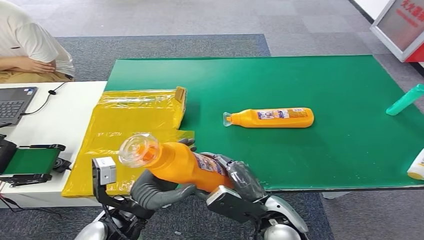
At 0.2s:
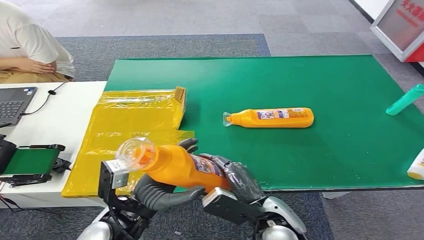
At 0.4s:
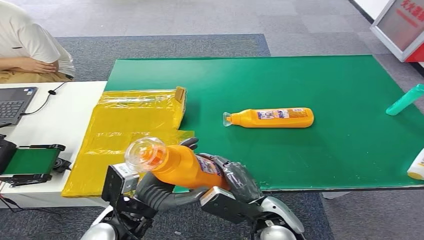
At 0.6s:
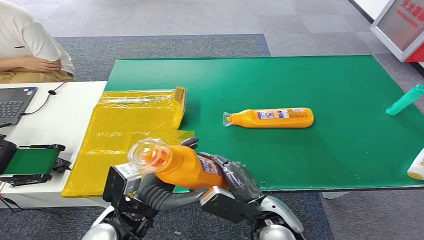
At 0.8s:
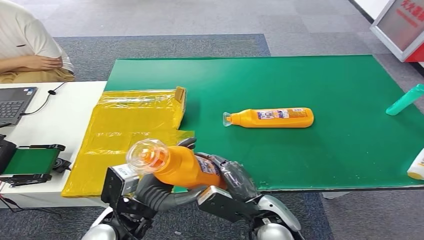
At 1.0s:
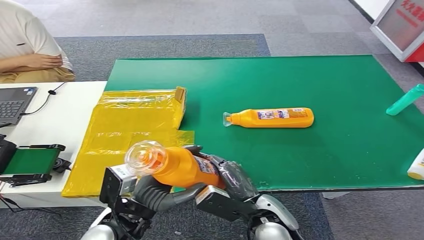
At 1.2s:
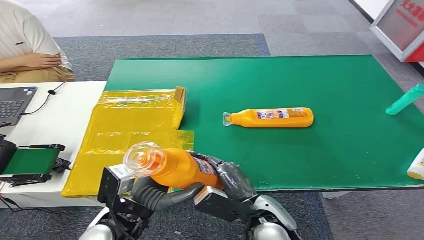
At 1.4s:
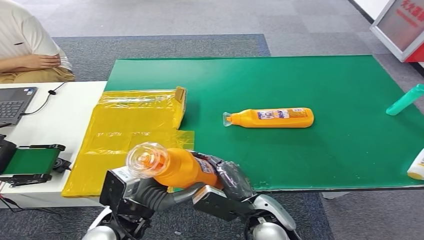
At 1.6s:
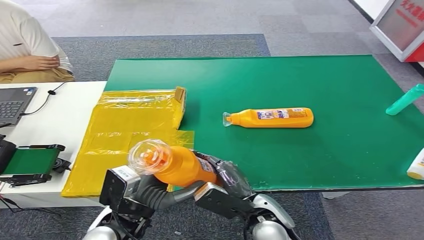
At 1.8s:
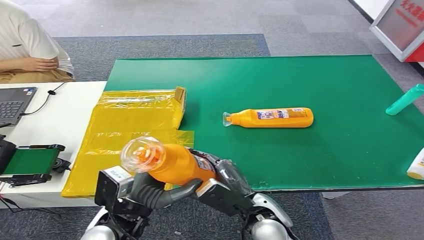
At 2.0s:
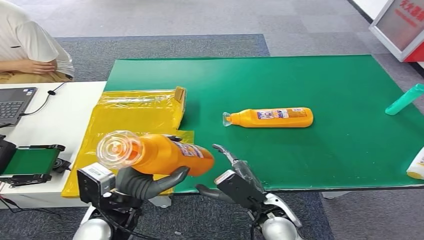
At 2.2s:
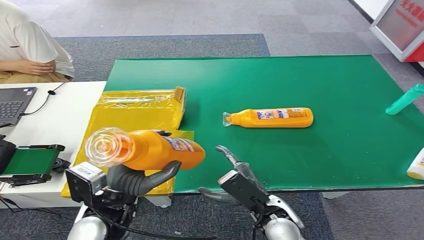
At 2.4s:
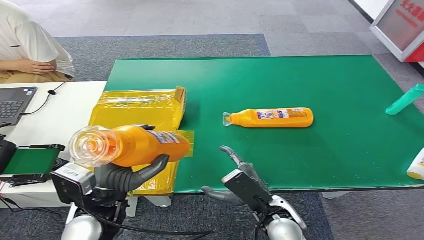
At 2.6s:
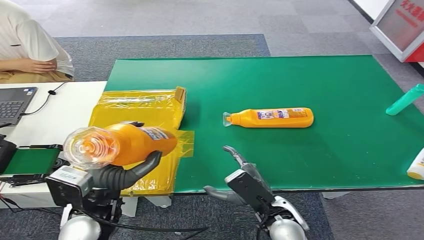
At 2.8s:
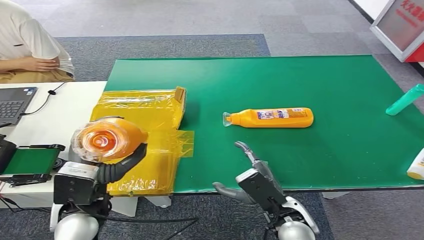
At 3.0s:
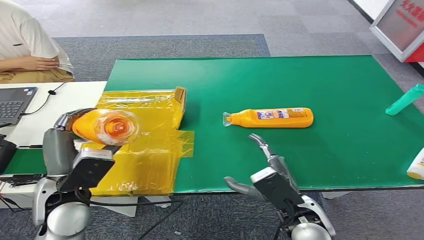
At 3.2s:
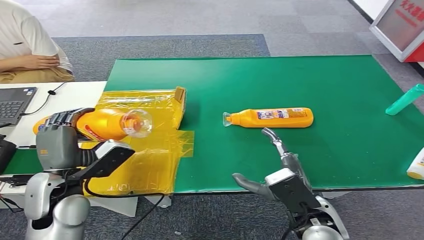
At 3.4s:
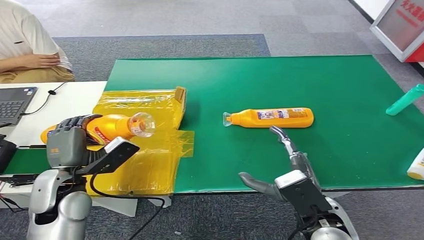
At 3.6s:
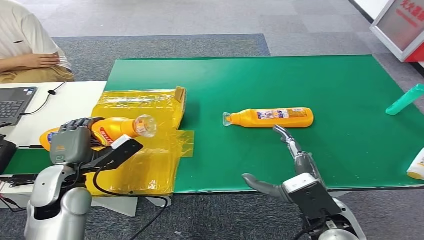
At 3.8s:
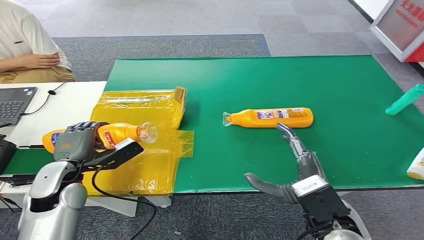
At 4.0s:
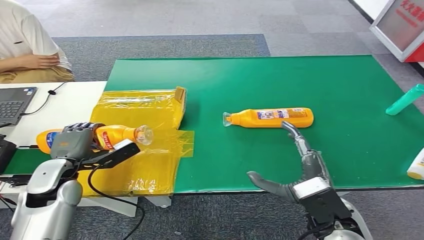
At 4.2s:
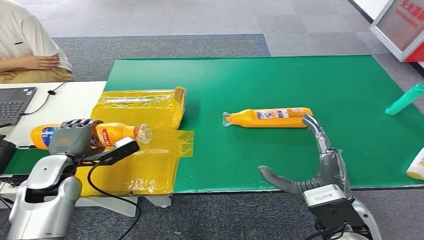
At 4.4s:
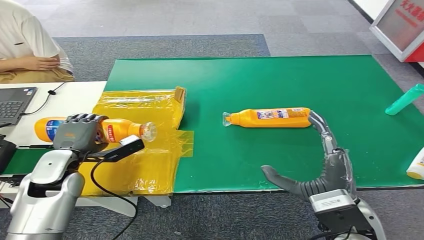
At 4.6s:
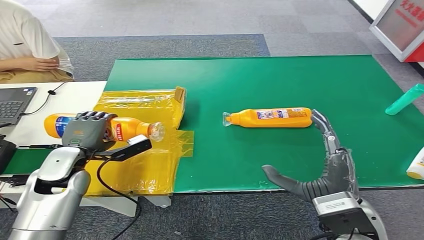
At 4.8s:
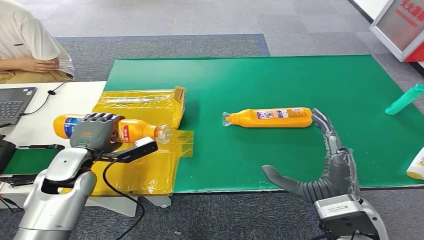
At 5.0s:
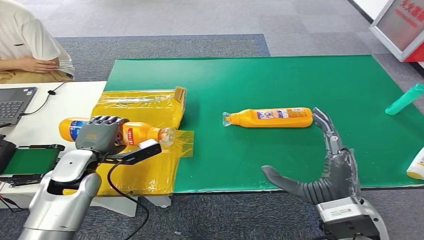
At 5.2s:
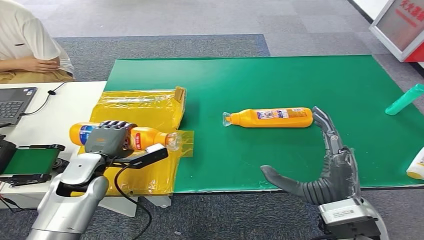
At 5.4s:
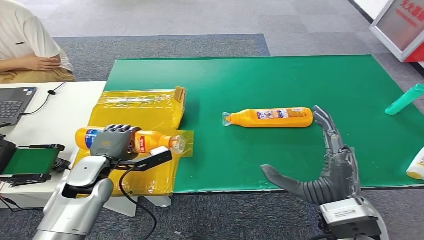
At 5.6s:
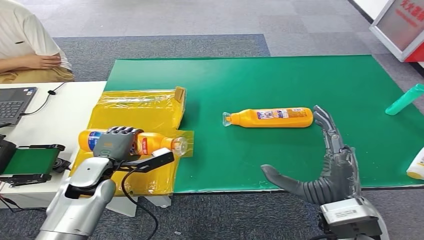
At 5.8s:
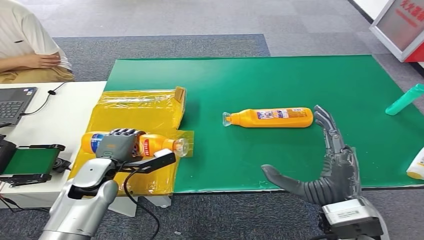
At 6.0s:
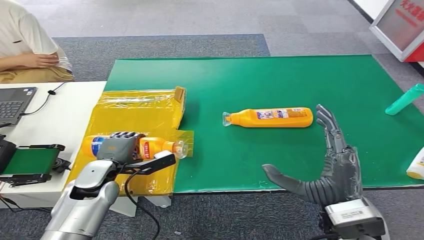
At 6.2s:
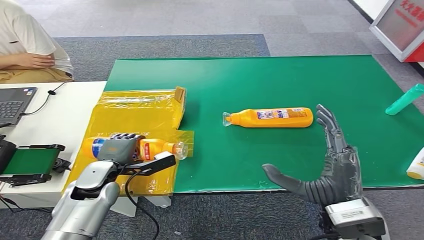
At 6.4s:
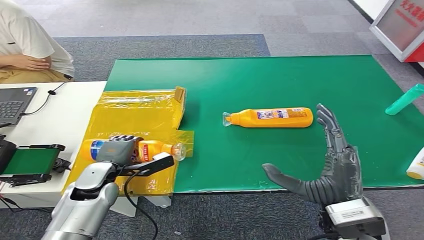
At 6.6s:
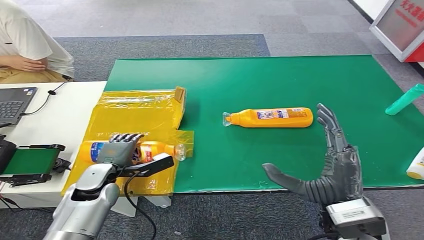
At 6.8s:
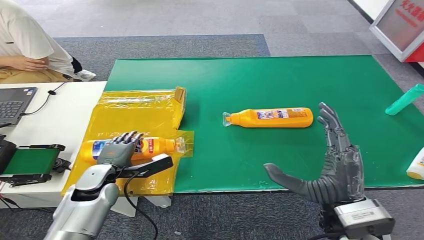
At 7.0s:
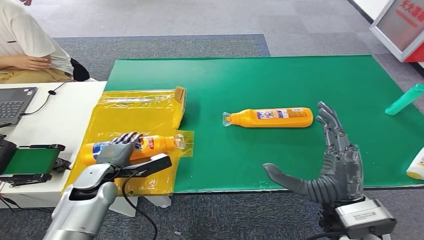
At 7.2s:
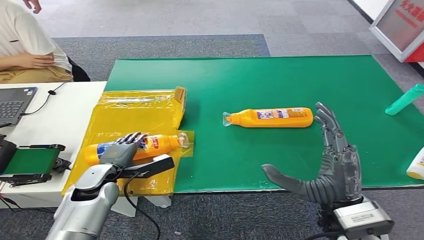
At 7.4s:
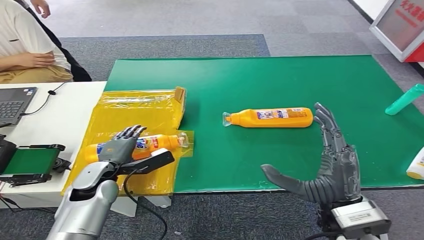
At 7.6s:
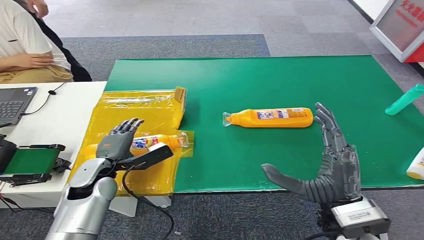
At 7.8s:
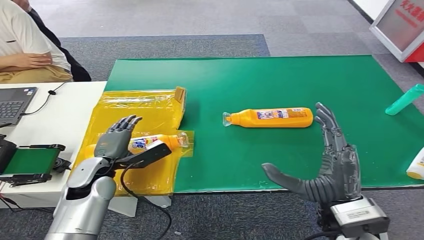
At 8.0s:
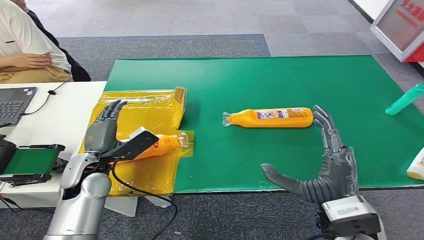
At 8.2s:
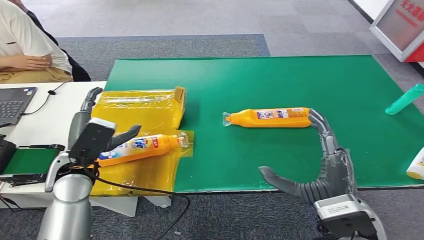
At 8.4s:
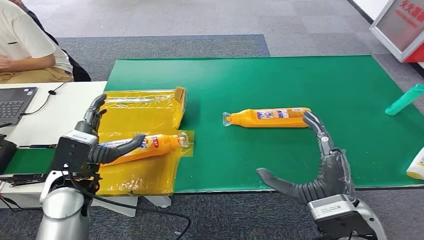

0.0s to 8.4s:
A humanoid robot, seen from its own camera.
Step, 0.0s to 8.4s: Turn the bottle to the front side.
1.4s to 2.8s: The left hand is displaced to the left by some 5 cm.
2.8s to 4.2s: The left hand goes some 15 cm to the left and forward; the right hand moves upward and to the right, about 10 cm.
4.2s to 5.6s: The left hand shifts approximately 5 cm to the right.
5.6s to 7.0s: The hands move only a little.
7.0s to 8.4s: The left hand shifts approximately 10 cm upward.

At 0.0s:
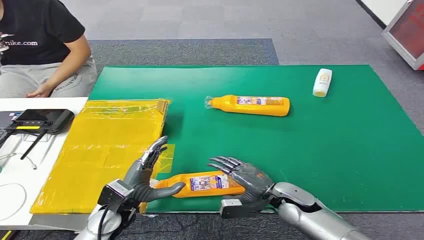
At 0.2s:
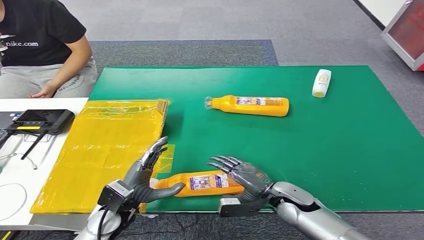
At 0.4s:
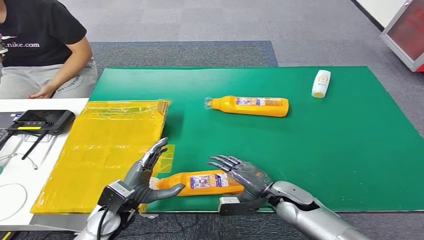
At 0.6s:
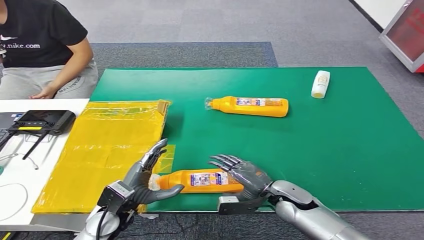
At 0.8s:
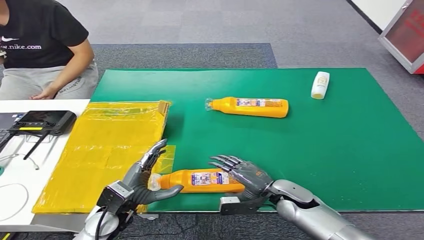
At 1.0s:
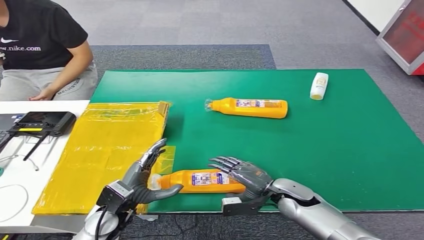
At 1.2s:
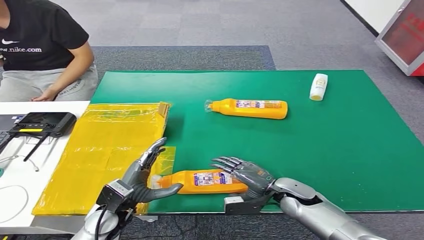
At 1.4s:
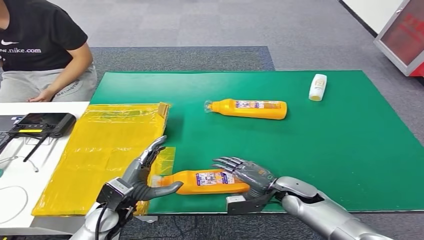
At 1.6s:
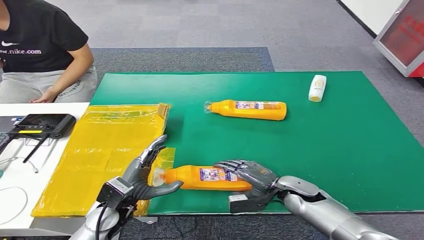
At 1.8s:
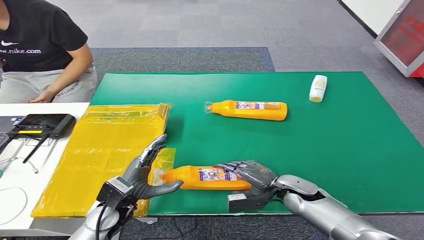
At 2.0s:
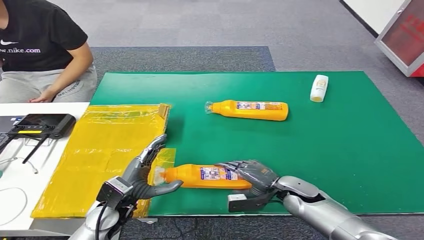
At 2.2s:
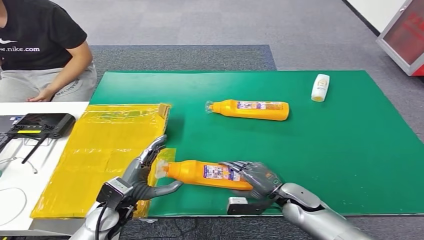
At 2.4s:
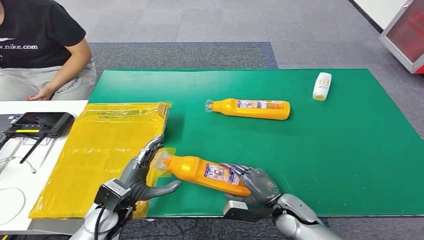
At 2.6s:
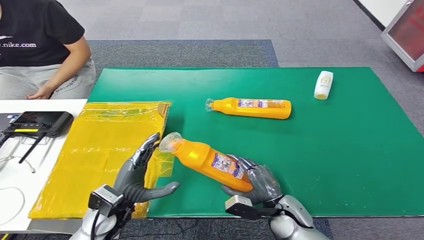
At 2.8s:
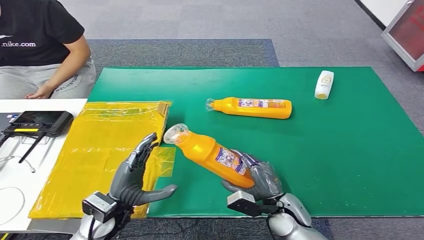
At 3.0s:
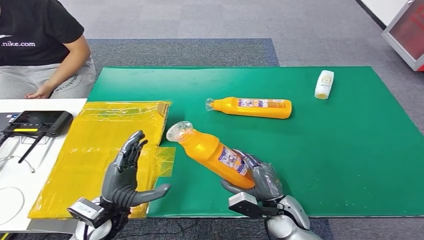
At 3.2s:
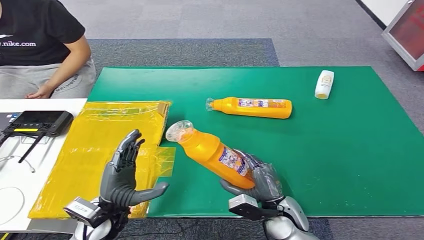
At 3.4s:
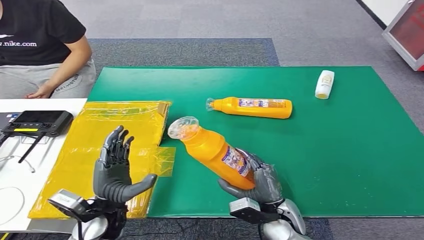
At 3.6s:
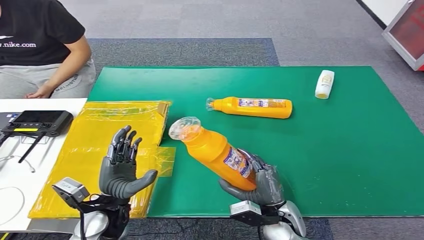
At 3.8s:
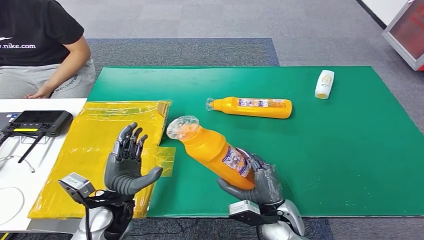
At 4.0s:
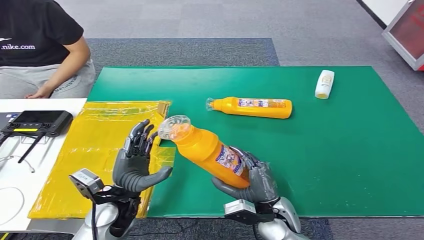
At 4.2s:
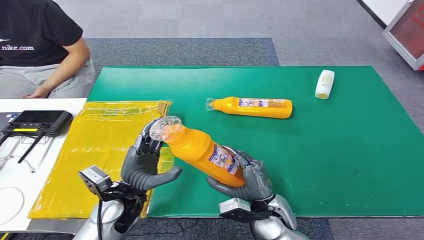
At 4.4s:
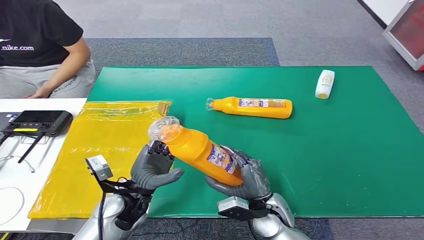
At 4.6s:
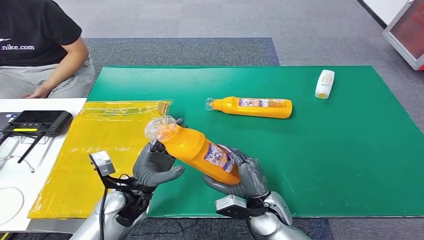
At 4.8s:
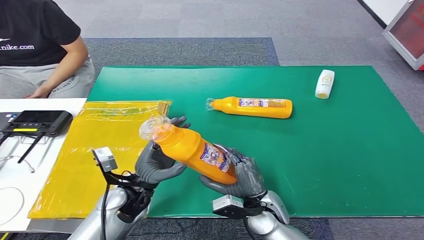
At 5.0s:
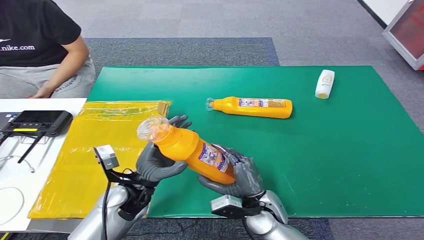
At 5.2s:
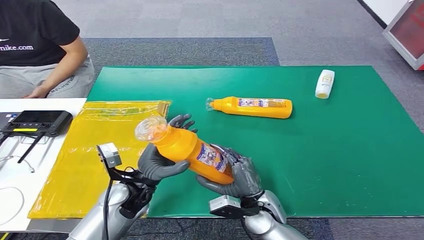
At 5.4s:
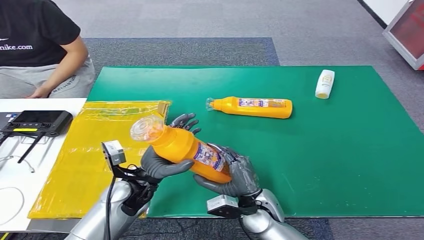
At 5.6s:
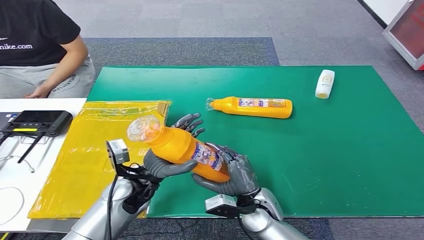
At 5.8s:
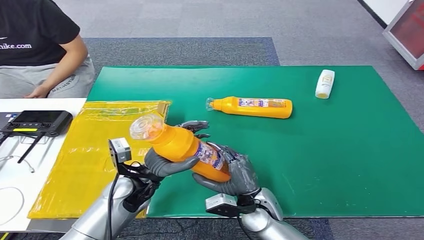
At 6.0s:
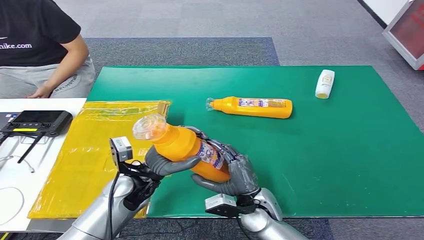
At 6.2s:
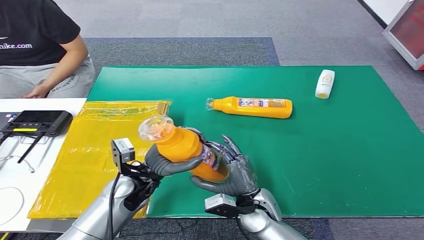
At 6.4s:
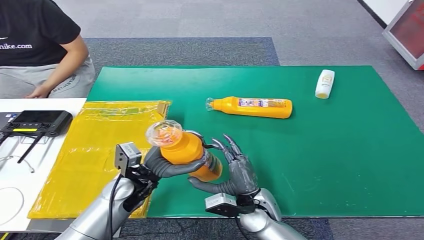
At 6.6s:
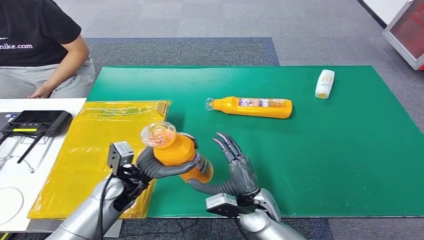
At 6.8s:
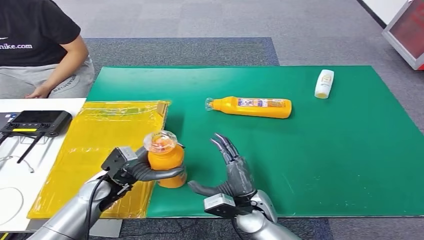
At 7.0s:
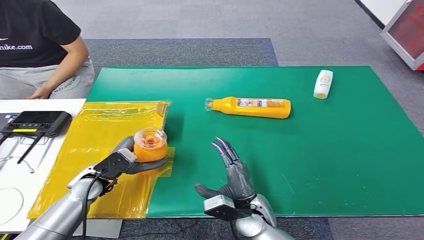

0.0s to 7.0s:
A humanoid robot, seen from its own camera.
Step, 0.0s to 3.8s: Pick up the bottle from the table.
Step, 4.0s to 7.0s: Turn the bottle to the front side.
5.6s to 7.0s: The left hand moves to the left, roughly 10 cm.
